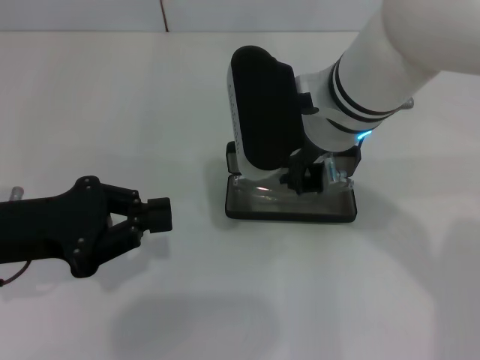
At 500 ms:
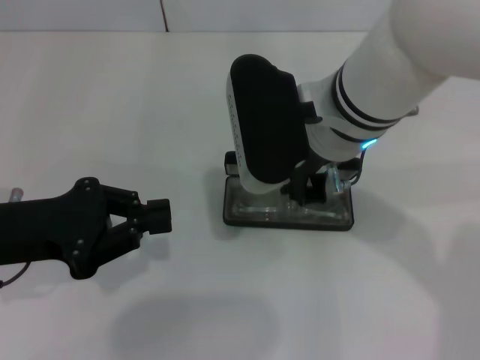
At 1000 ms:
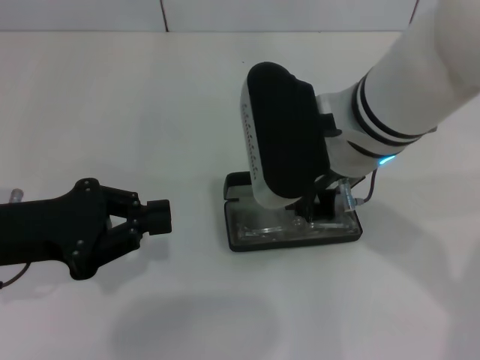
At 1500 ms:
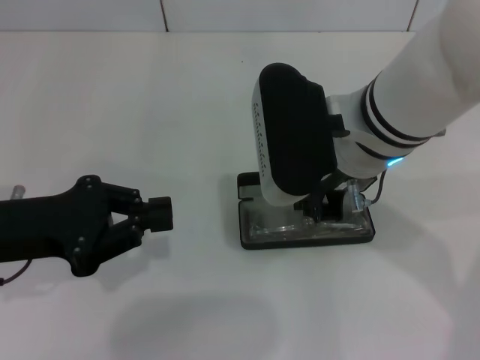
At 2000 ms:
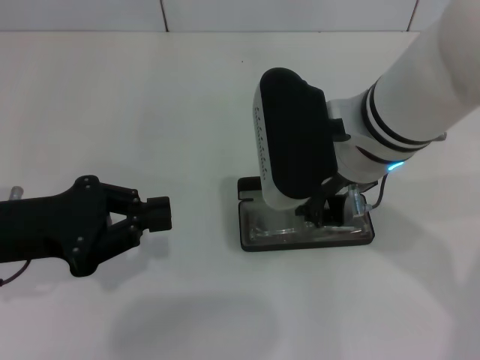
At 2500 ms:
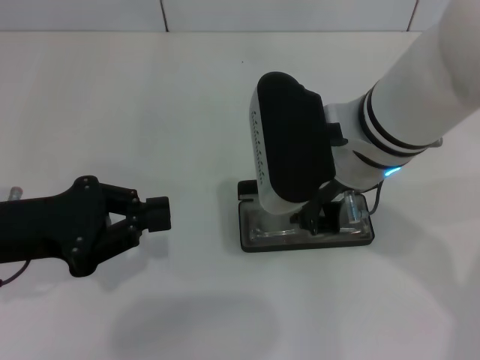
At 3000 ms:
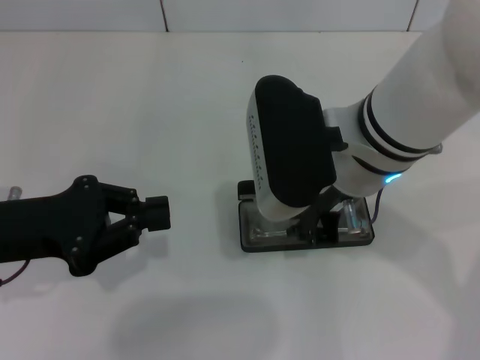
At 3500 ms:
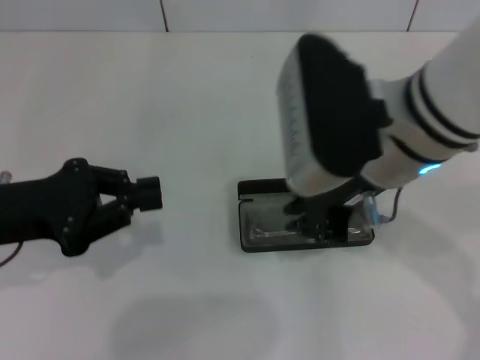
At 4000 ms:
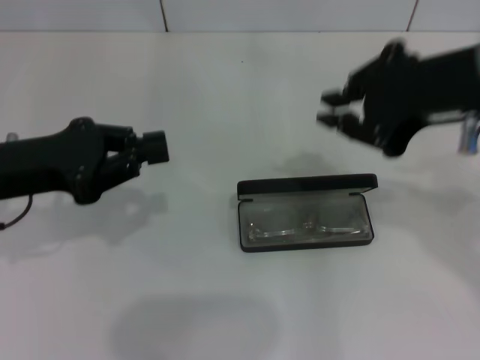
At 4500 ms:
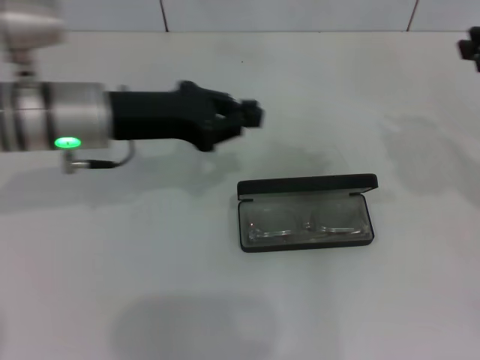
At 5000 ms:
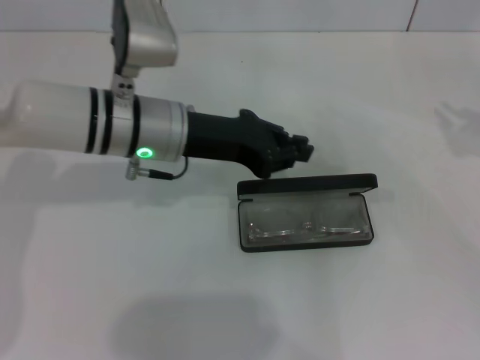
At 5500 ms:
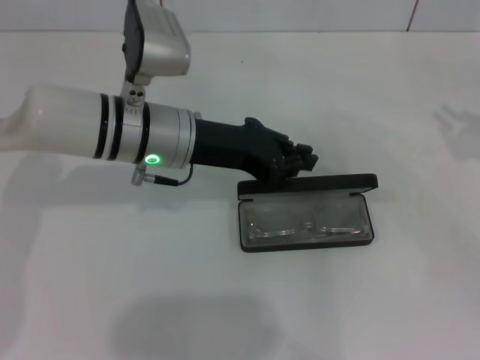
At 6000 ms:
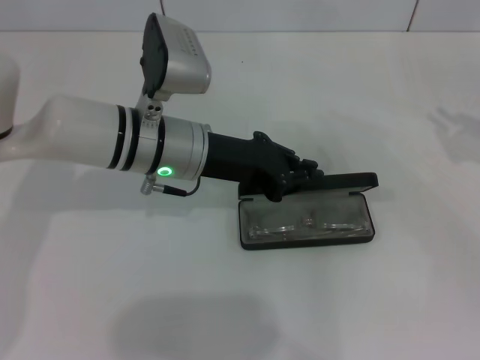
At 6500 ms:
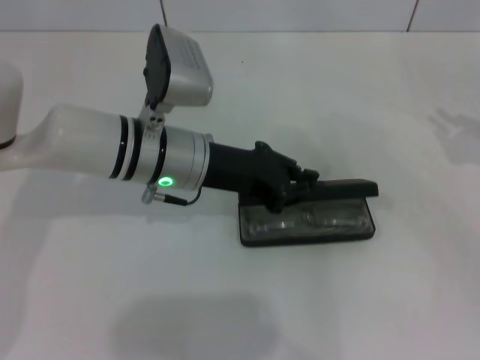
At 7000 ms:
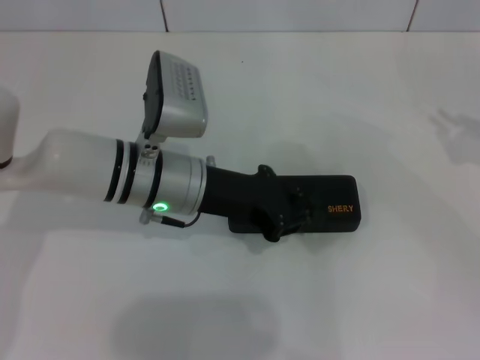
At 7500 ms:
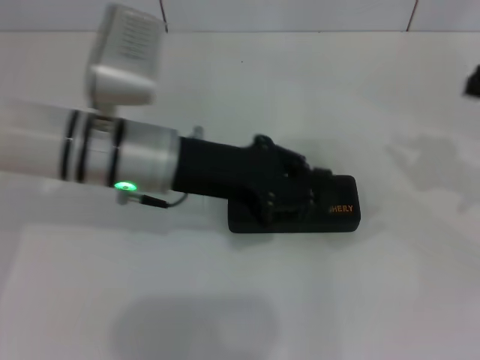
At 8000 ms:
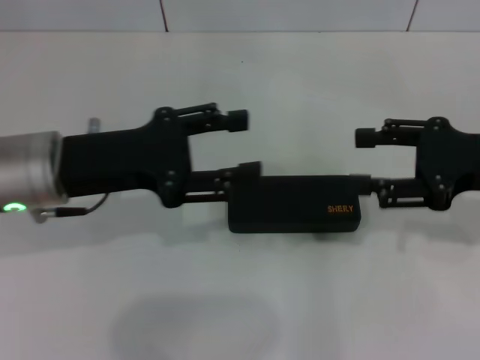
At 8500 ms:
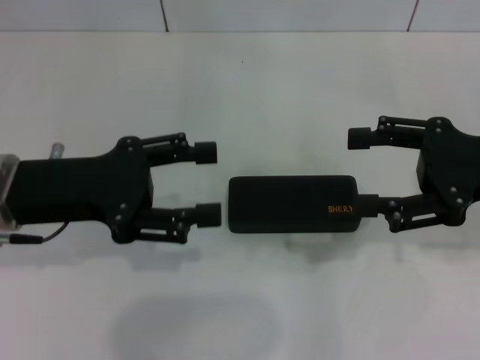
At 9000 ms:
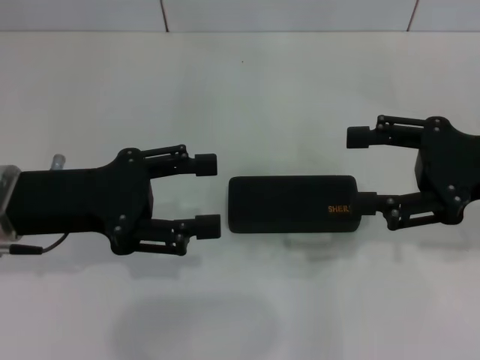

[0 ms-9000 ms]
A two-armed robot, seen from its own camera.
Step, 0 ms to 3000 ms: Put the glasses into the case with your right hand.
Step, 3500 ms to 7000 ms: Close the glasses case with your left hand.
0 ms to 2000 ms: The grippers stay close to where they were, moving slightly.
2000 ms to 4500 ms: The left gripper moves forward and to the right, roughly 15 cm. The right gripper goes approximately 20 cm to the right.
4500 ms to 7000 ms: Both grippers travel together to the right and downward, some 10 cm.
7000 ms to 9000 ms: The left gripper is displaced to the left and backward by about 15 cm, and opens up. Meanwhile the right gripper shifts approximately 10 cm to the left, and opens.

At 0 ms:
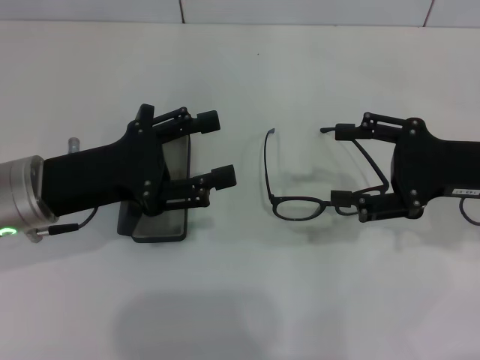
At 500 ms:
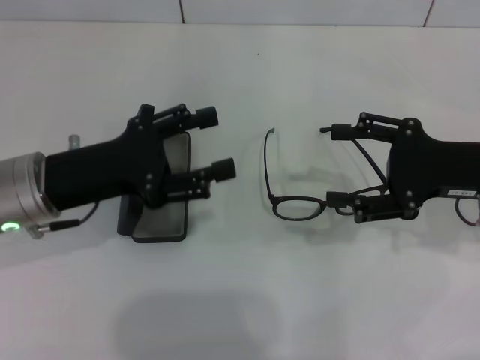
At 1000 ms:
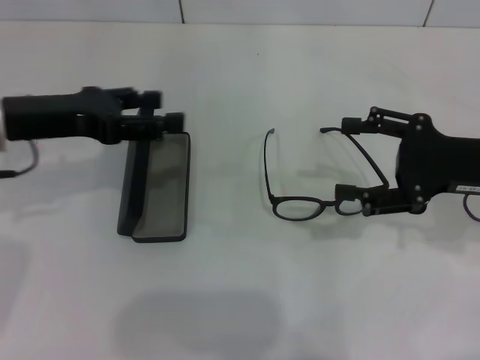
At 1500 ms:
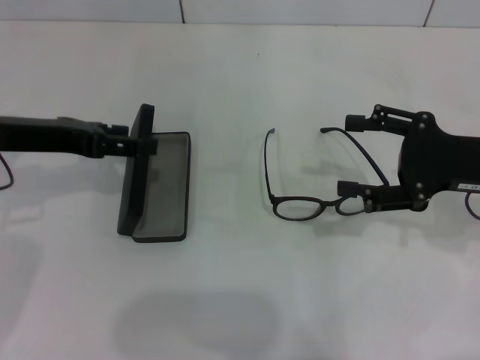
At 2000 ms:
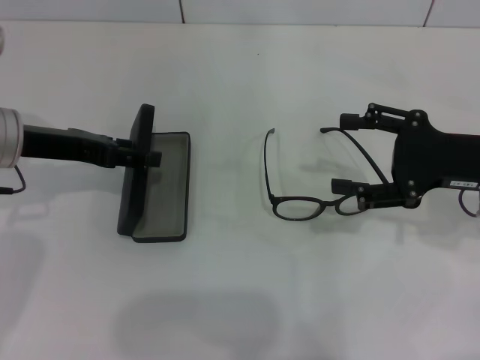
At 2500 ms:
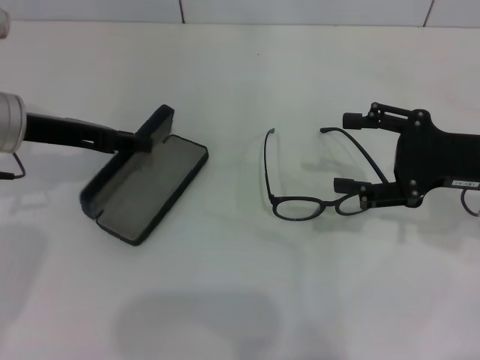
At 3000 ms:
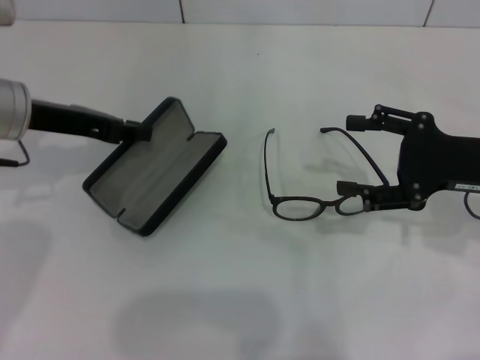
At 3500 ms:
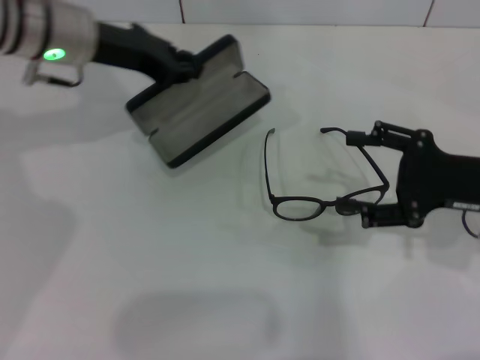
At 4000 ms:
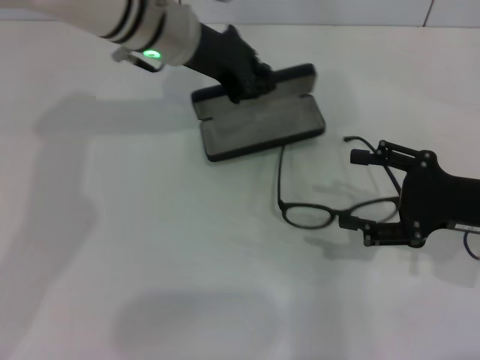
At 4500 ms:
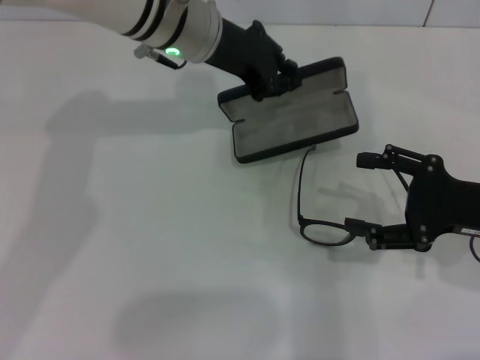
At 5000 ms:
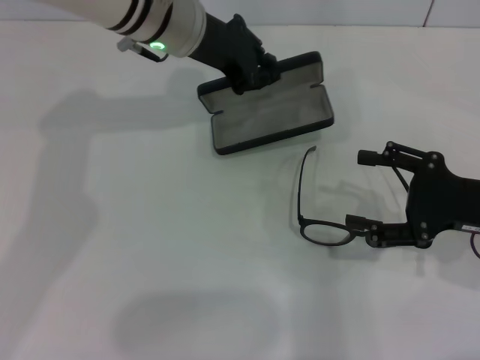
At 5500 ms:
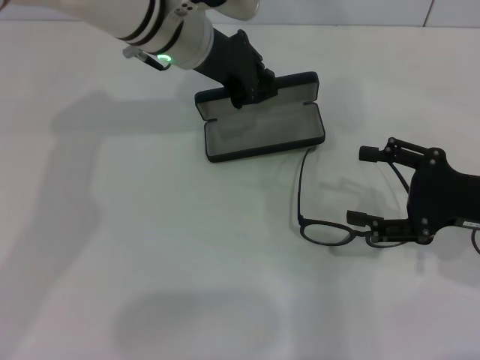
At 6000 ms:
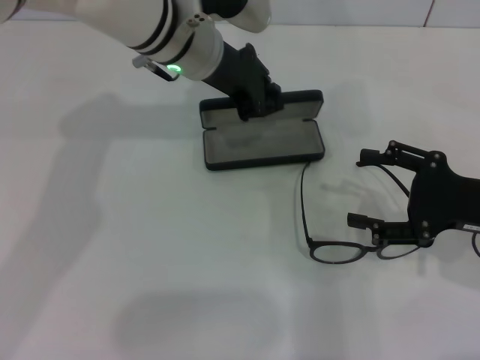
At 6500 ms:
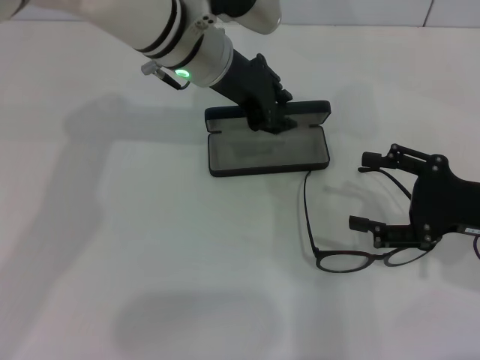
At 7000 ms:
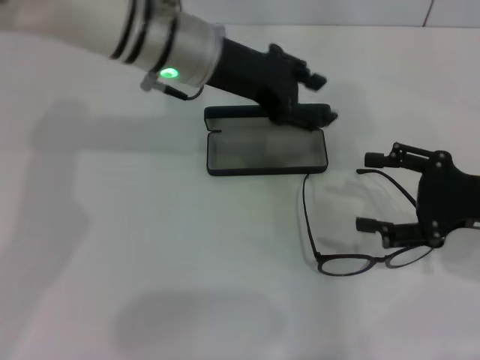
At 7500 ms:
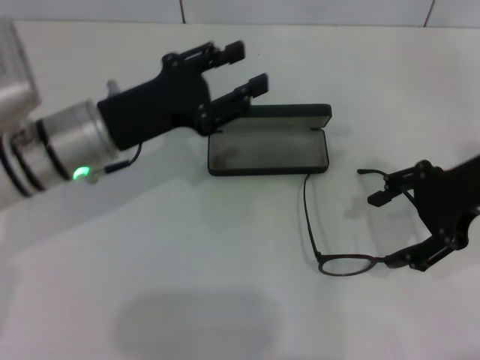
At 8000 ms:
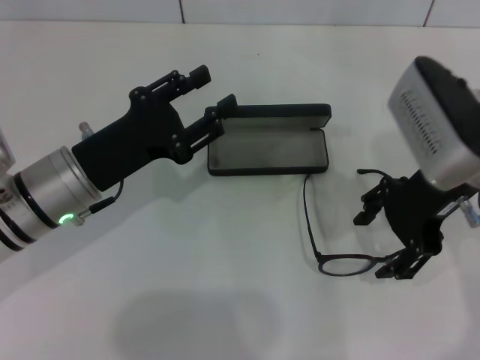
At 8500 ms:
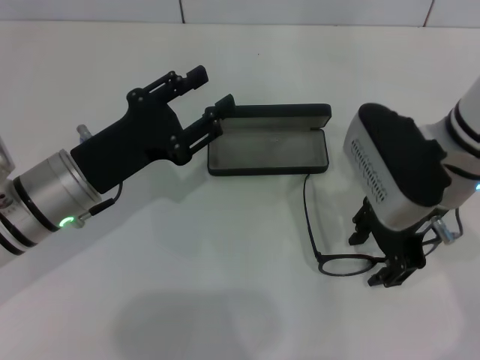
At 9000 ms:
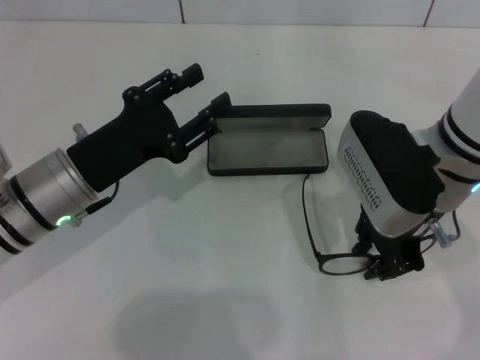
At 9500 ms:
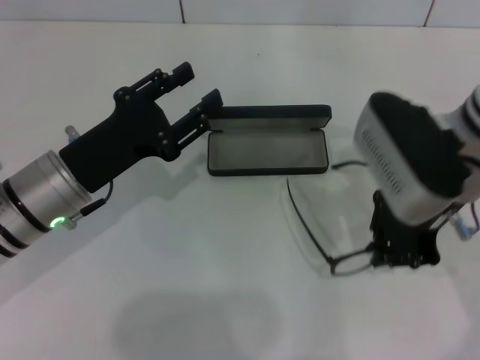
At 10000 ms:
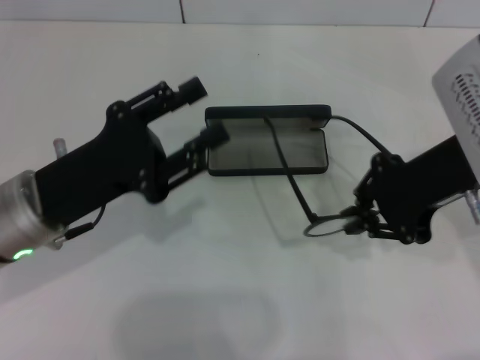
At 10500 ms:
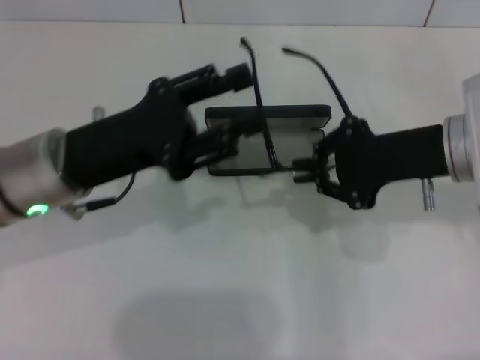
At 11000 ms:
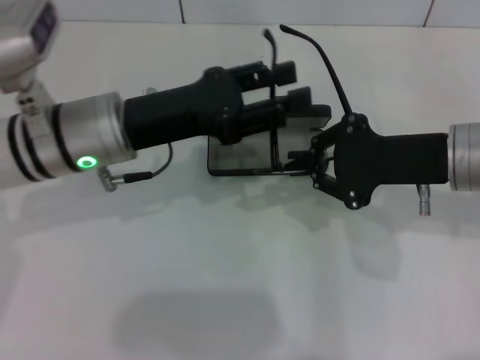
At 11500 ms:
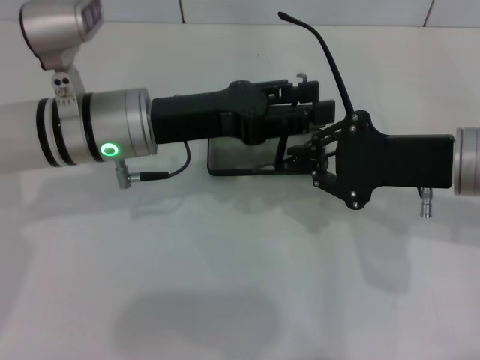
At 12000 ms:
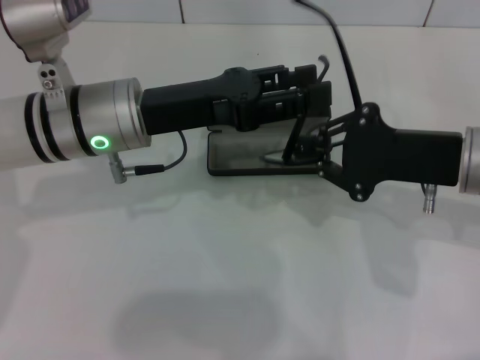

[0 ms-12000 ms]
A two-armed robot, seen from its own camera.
Step, 0 ms to 2500 ms: Grab the glasses case with your left hand.
Step, 3000 ms to 6500 ms: Place the glasses case in the center of the table with your left hand.
Step, 7000 ms to 9000 ms: Grab the eyeglass frame with your right hand.
0 ms to 2000 ms: The left gripper moves forward, roughly 5 cm.
2000 ms to 4000 ms: The left gripper goes approximately 20 cm to the right and forward, and closes.
4000 ms to 6000 ms: The grippers move only a little.
6000 ms to 8000 ms: The right gripper goes approximately 15 cm to the left, upward and forward, while the left gripper is displaced backward, to the left and downward by about 20 cm, and opens its fingers.
8000 ms to 10000 ms: The right gripper closes its fingers.
10000 ms to 12000 ms: The left gripper shifts some 10 cm forward and to the right. The right gripper shifts roughly 5 cm downward.

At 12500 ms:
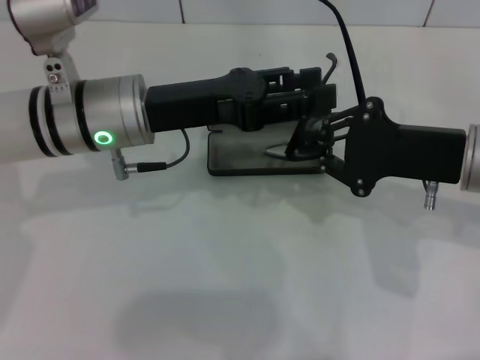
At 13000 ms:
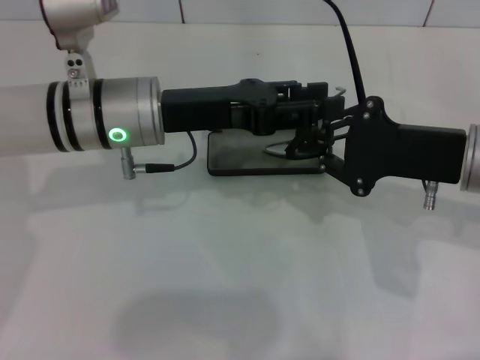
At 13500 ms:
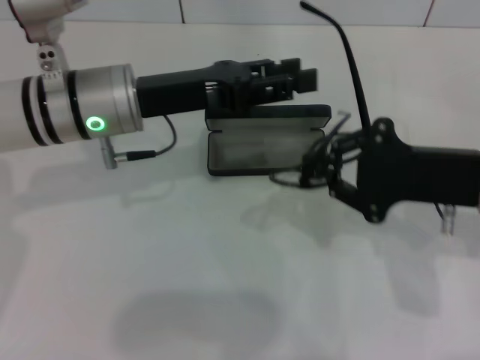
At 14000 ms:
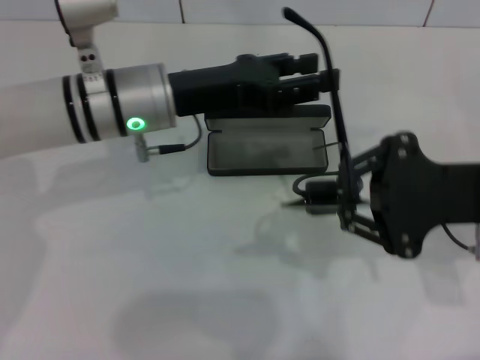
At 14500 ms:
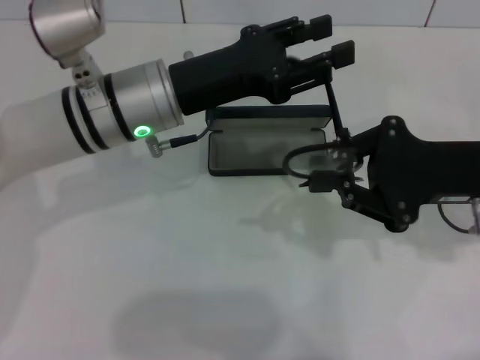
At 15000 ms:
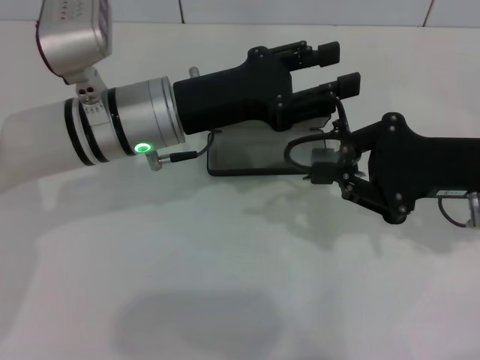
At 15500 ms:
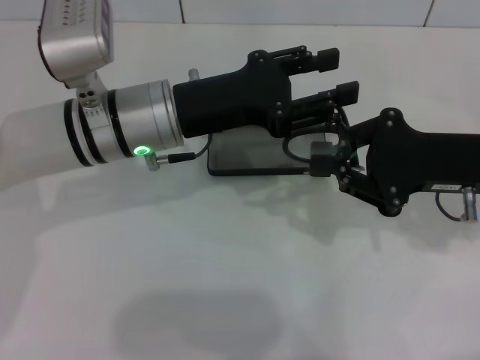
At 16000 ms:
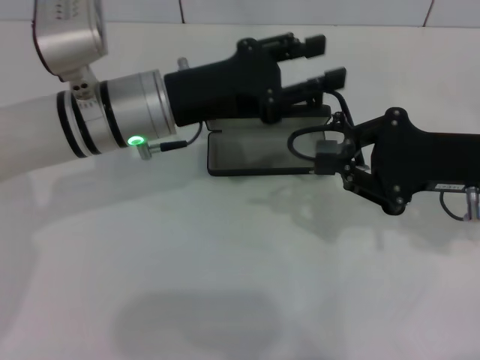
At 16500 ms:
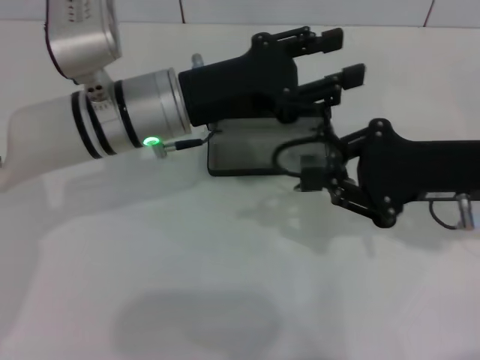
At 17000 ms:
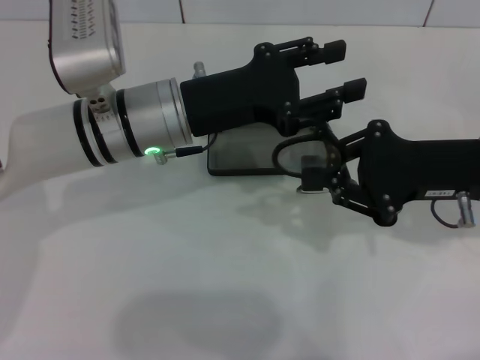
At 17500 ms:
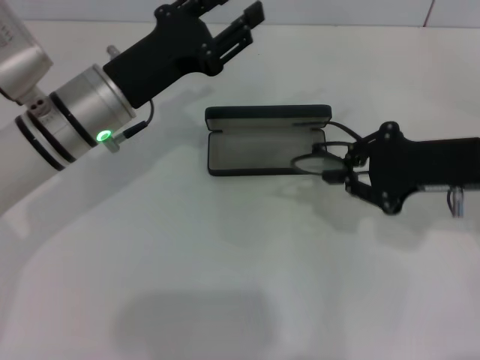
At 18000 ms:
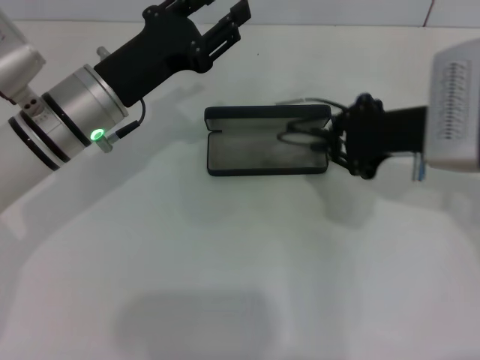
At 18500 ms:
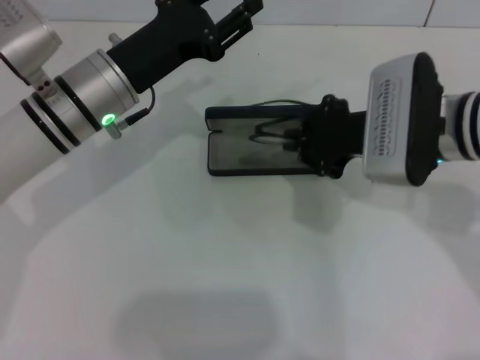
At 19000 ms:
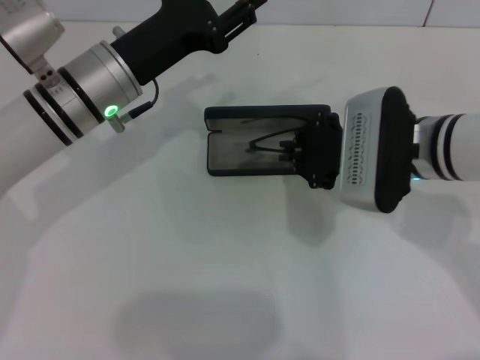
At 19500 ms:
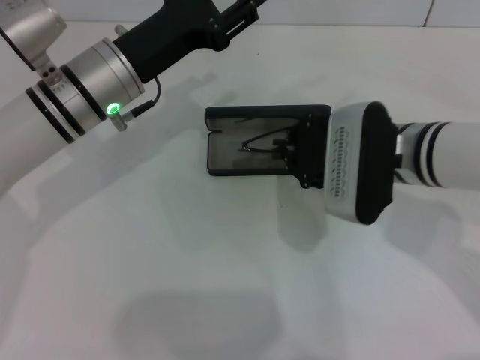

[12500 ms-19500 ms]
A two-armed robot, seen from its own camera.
Step, 12500 ms to 16500 ms: Lift the glasses with your right hand.
14500 ms to 16000 ms: The grippers stay close to where they were, moving slightly.
17500 ms to 19500 ms: The right gripper is displaced to the left by about 10 cm.
